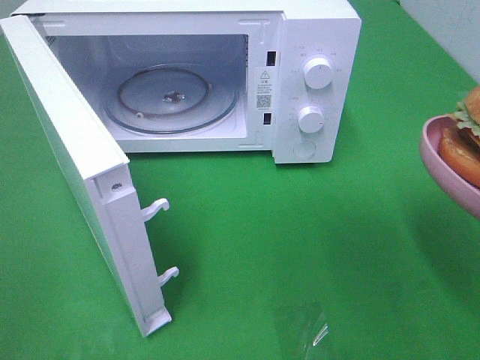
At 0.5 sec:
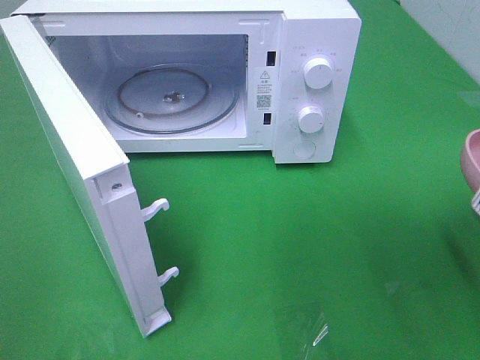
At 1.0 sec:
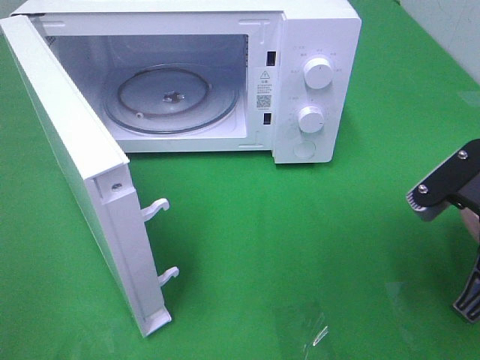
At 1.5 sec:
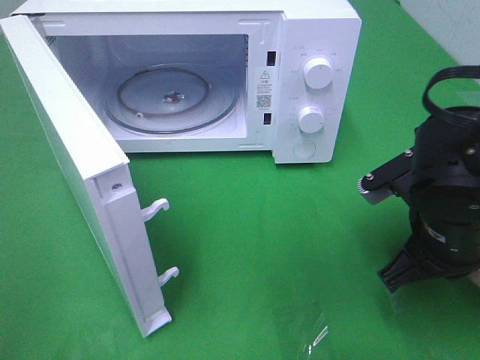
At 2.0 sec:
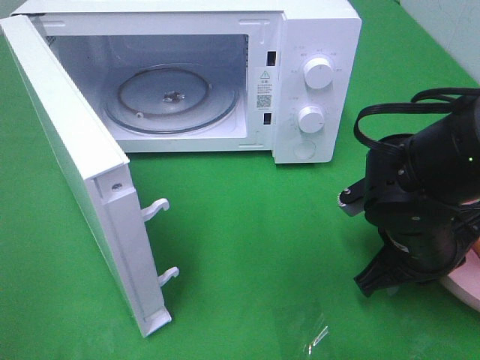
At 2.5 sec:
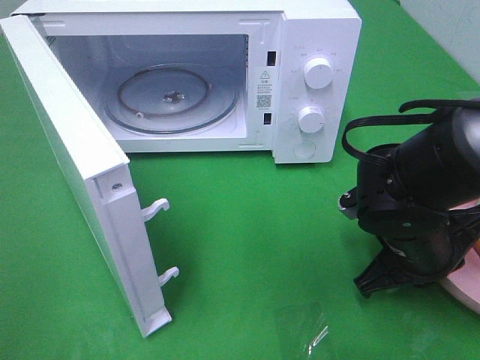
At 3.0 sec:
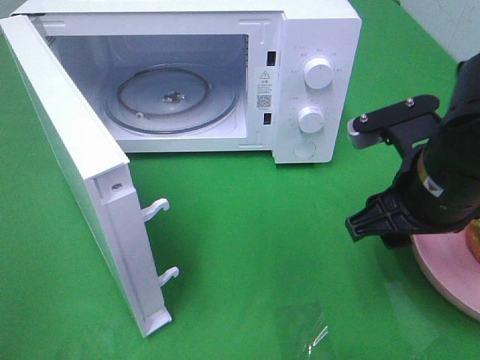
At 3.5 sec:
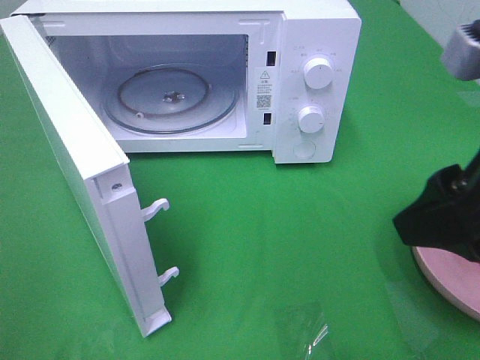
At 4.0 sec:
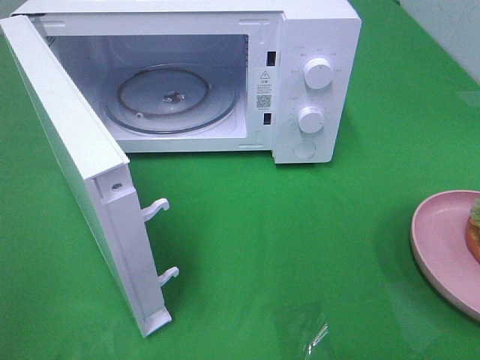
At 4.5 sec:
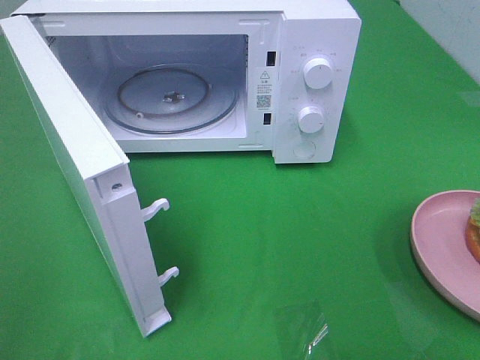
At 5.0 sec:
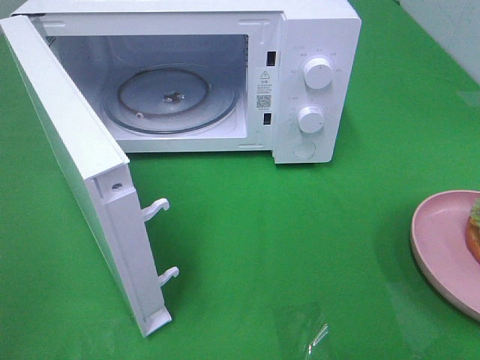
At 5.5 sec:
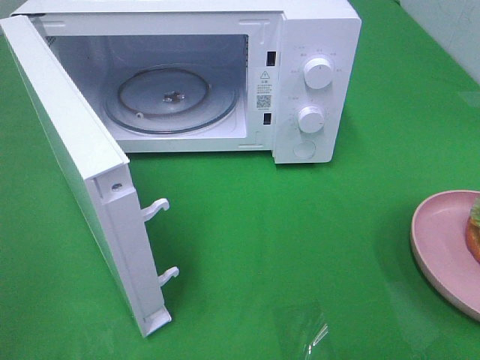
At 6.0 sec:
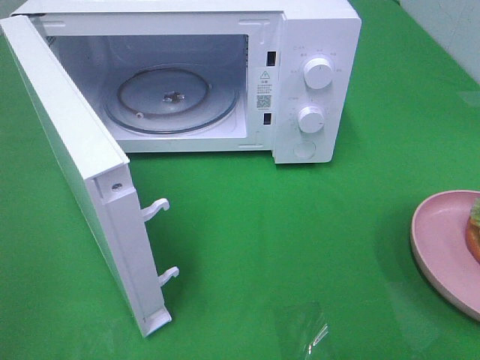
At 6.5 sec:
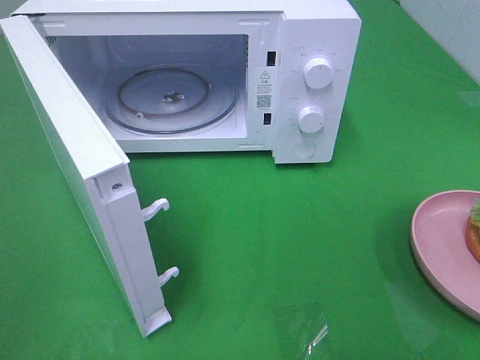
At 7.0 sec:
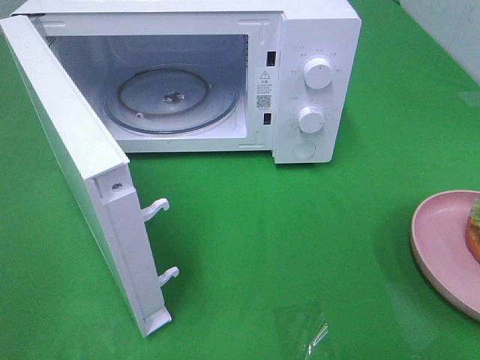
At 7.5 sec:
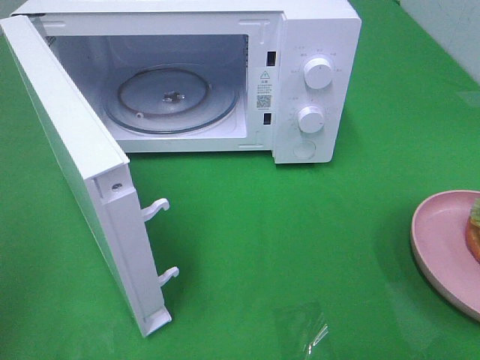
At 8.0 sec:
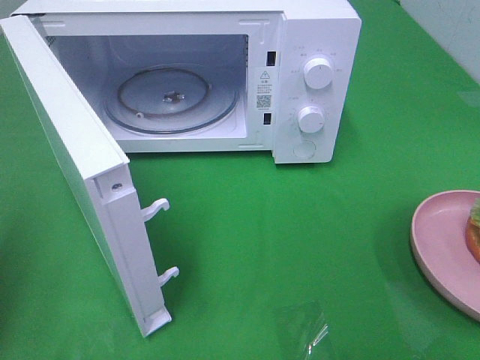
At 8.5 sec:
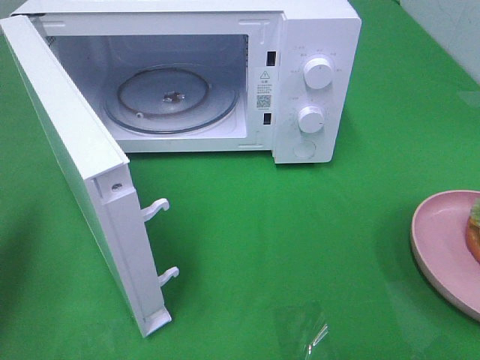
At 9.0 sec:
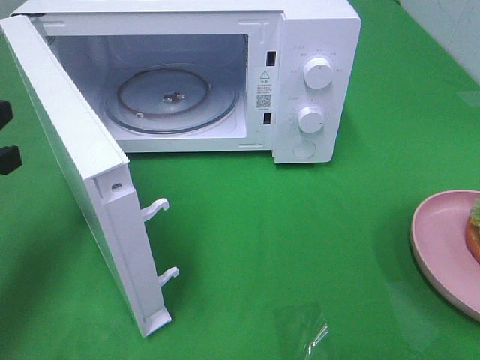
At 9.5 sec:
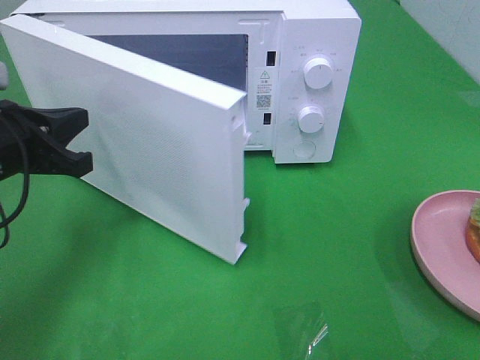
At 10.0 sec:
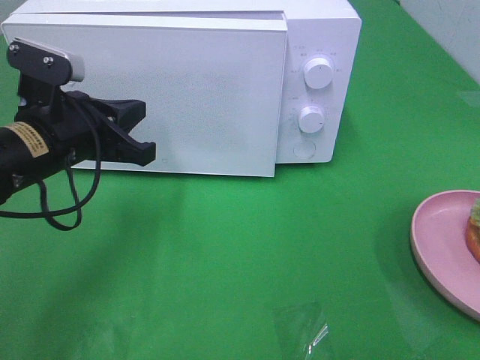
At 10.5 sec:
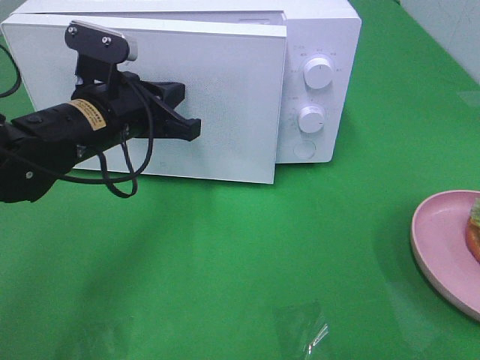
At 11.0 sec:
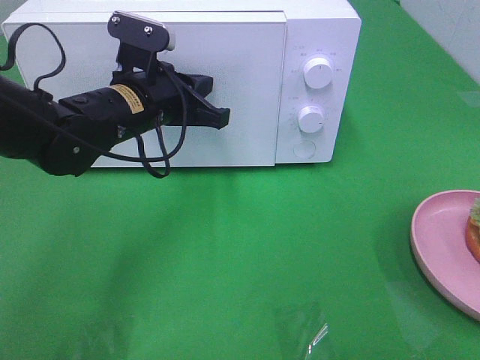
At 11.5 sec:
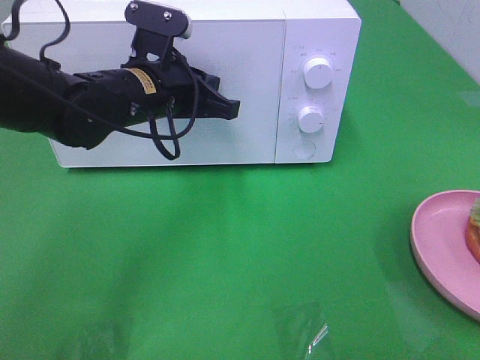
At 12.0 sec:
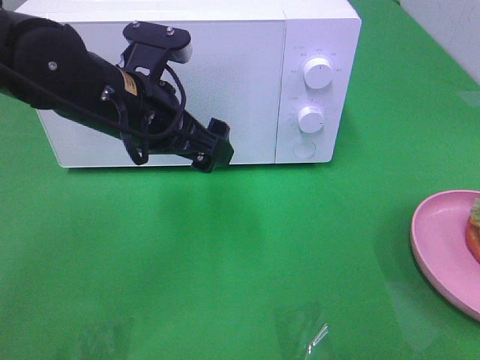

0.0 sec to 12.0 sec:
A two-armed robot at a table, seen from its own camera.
Task of the whole recording: Heat the burger.
Step, 0.0 sec to 2.5 sec: Right hand: place the plate on the table.
Step, 3.0 sec to 11.5 sec: Left hand: close the microwave door.
0.0 sec to 2.0 sec: The right gripper is displaced downward, forward and to the left by some 20 cm.
2.0 sec to 4.0 sec: The right gripper goes some 25 cm upward and backward, and opens its fingers.
8.0 sec to 10.0 sec: The left gripper travels to the right, forward and downward by some 25 cm.
10.0 sec to 12.0 sec: The left gripper goes roughly 10 cm to the right, and opens up.

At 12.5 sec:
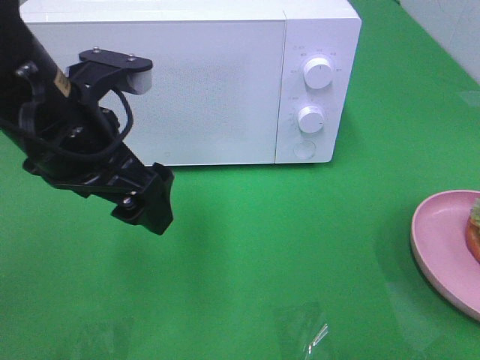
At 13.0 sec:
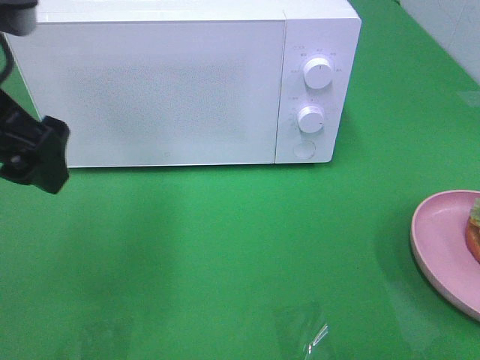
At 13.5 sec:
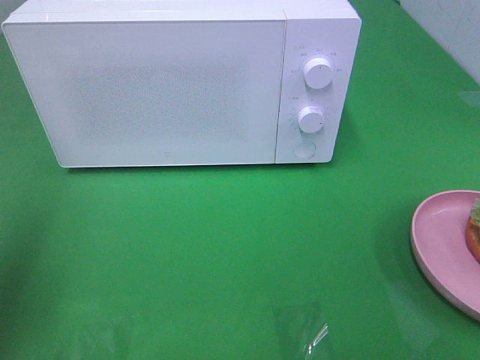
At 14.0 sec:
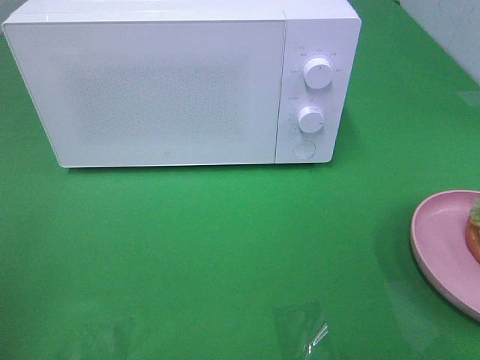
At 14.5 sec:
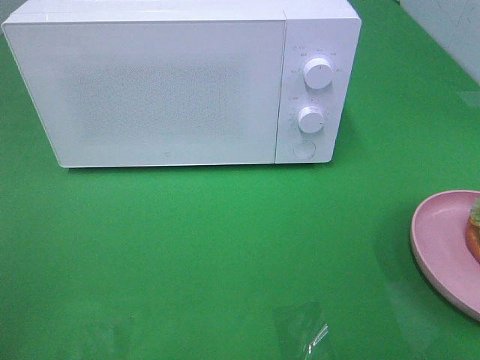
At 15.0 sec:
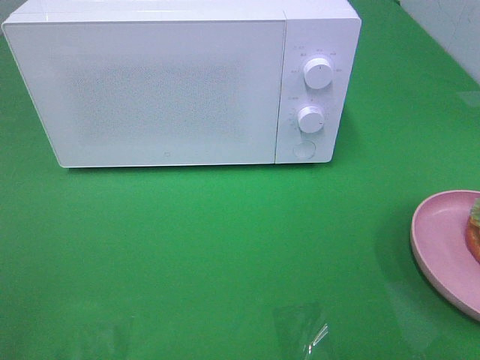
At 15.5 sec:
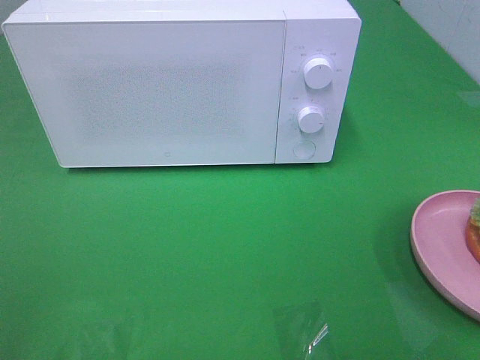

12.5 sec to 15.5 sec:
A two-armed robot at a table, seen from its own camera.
Task of the whole recording: Heat the burger.
12.5 sec to 14.0 sec: The left gripper travels to the left and backward by approximately 25 cm.

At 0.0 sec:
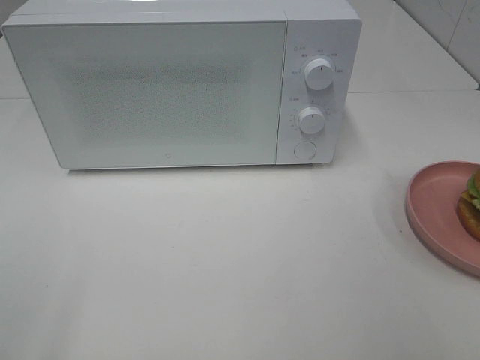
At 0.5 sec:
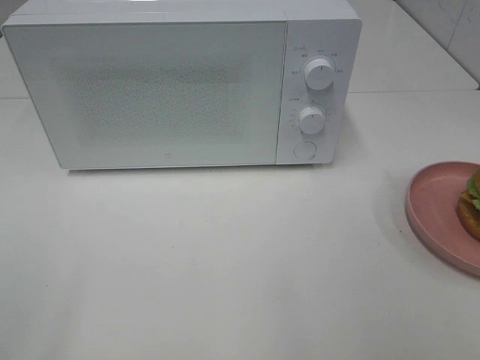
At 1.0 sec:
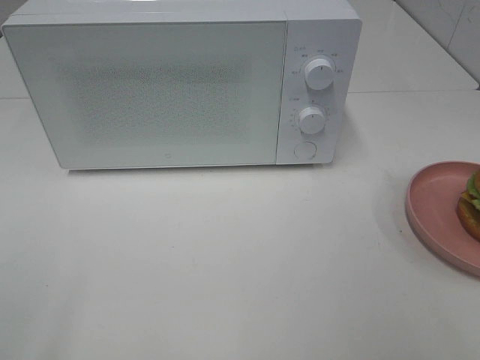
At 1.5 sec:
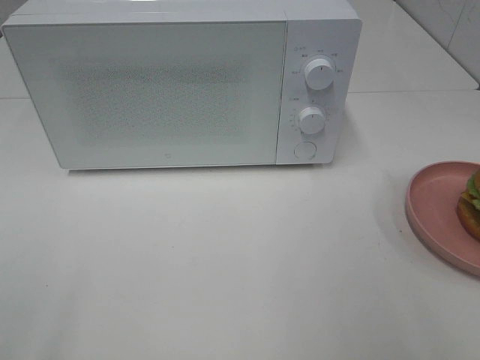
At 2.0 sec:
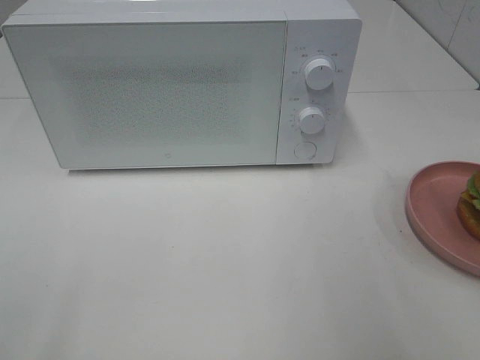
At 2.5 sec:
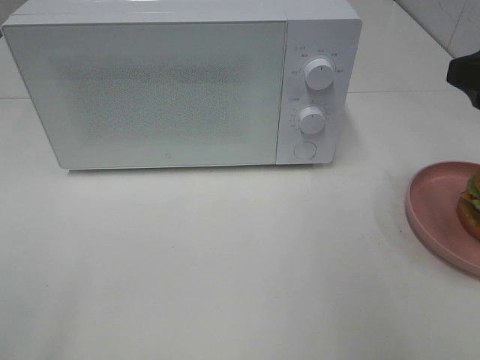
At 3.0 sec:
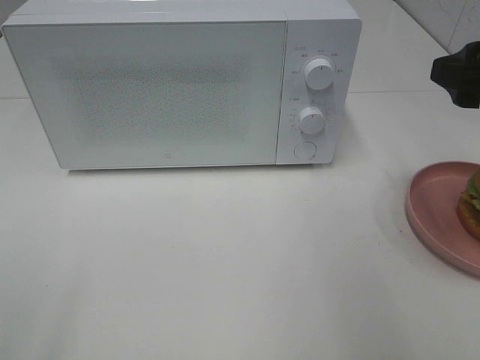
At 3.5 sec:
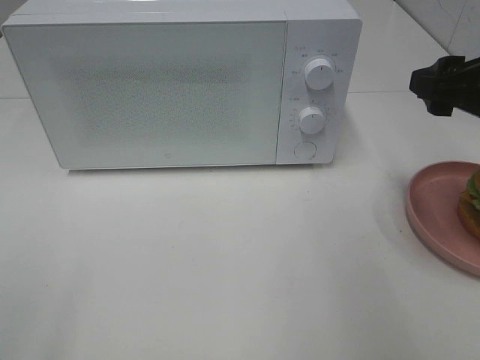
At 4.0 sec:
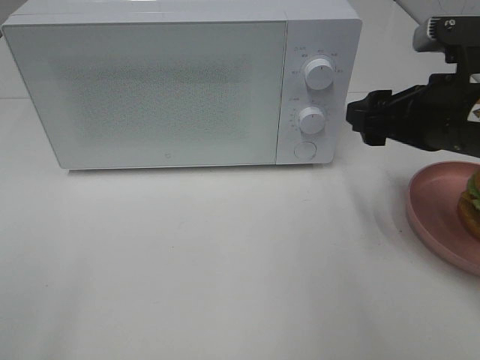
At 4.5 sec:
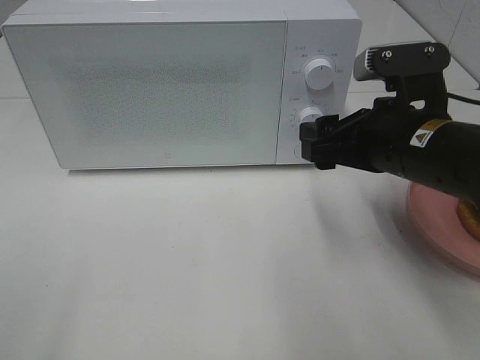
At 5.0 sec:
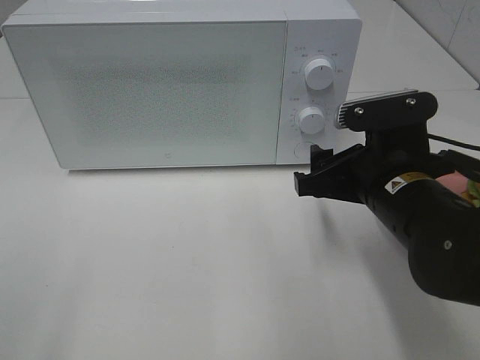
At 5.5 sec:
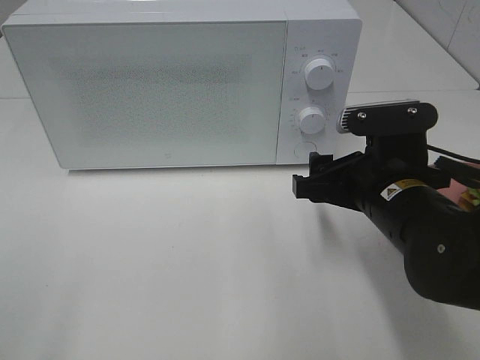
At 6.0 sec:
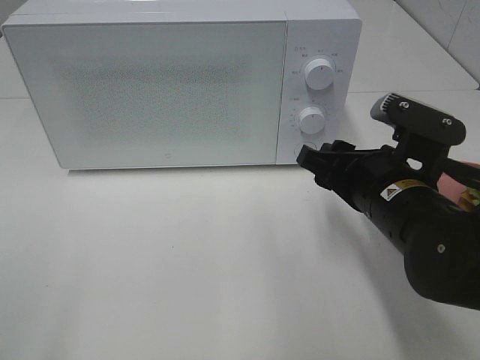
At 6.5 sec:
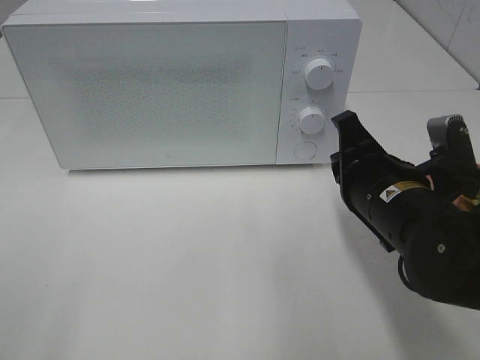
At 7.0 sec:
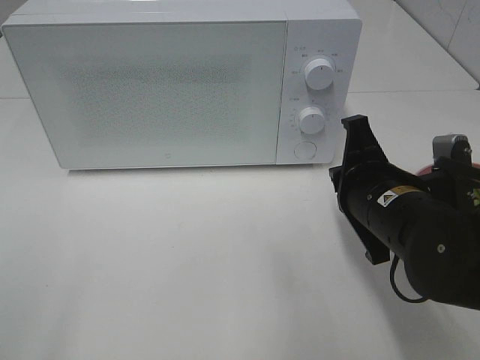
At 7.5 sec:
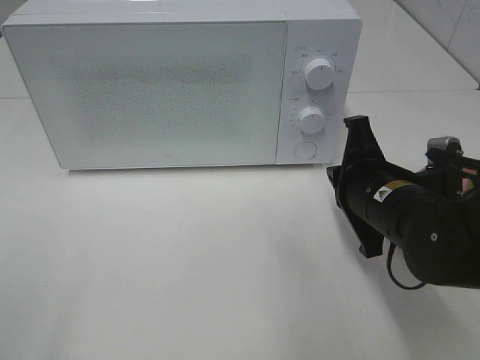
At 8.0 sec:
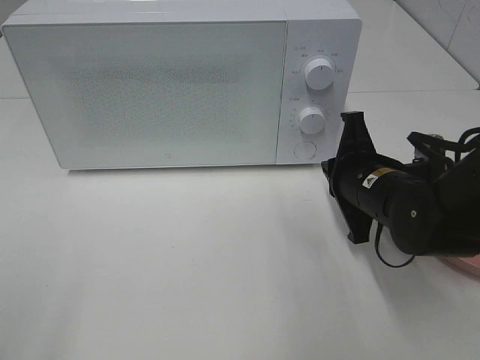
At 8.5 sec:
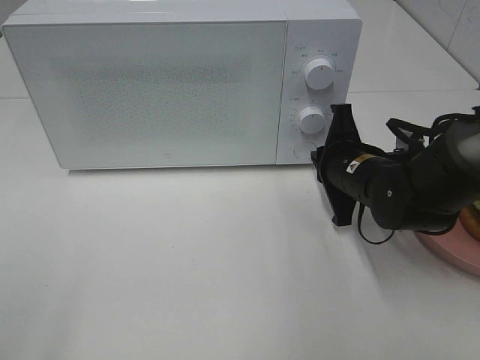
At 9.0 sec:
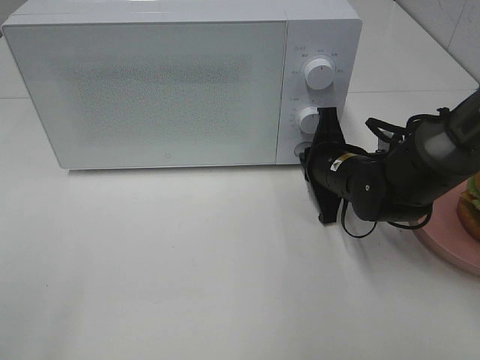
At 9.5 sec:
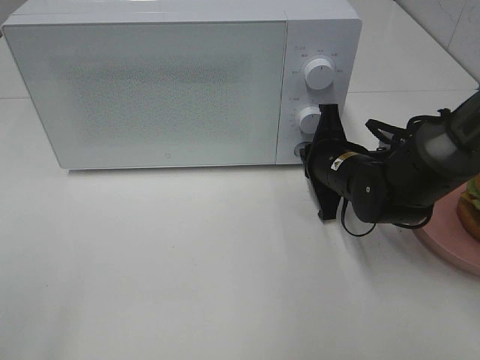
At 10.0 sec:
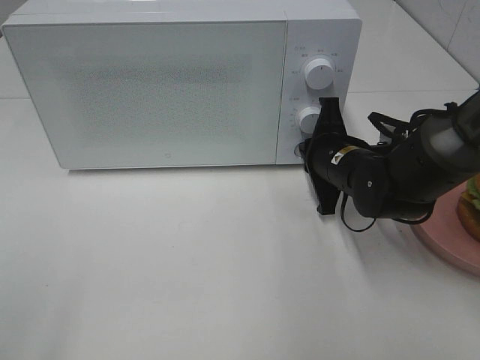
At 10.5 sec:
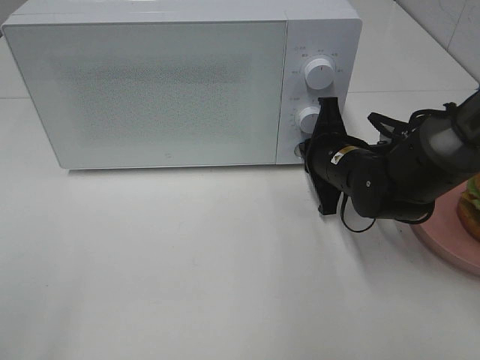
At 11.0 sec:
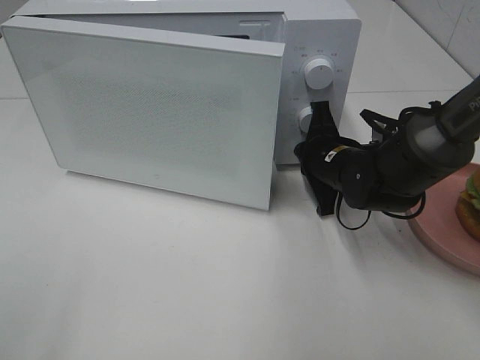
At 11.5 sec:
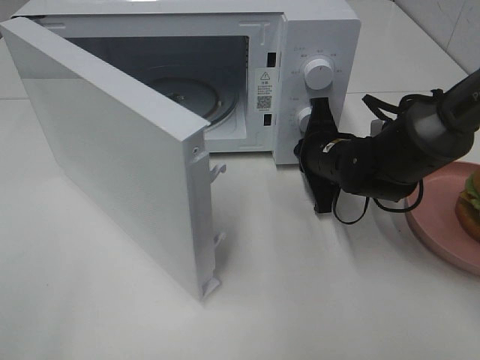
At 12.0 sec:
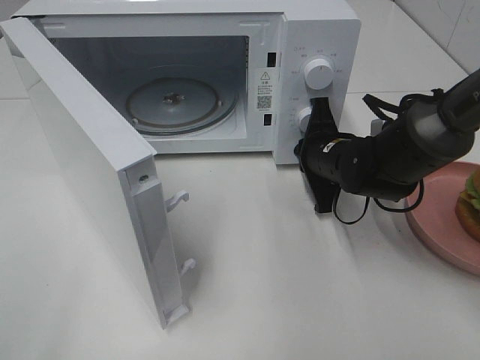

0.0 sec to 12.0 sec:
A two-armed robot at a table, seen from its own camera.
Task of the whole recording: Heat the burger.
2.0 sec to 4.0 sec: The right gripper moves forward, downward and to the left, some 15 cm.
4.0 sec to 6.0 sec: The right gripper travels downward and to the left by some 10 cm.
6.0 sec to 8.0 sec: The right gripper is displaced forward by approximately 5 cm, and closes its fingers.
8.0 sec to 10.0 sec: The right gripper is displaced forward by approximately 5 cm.
